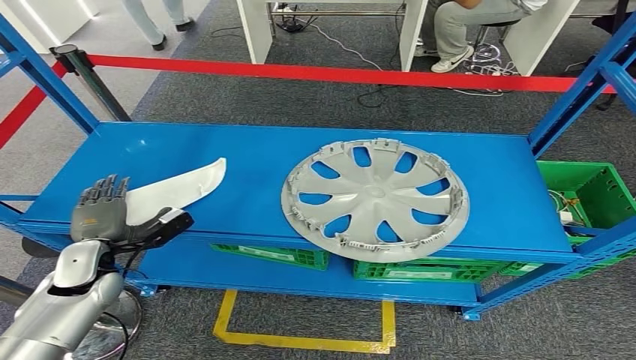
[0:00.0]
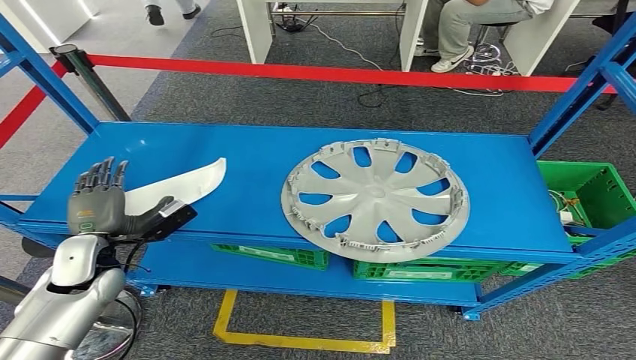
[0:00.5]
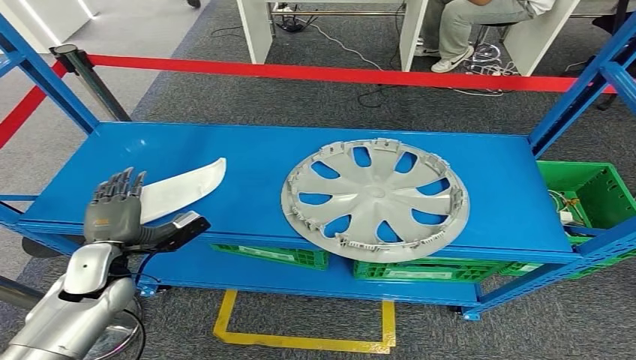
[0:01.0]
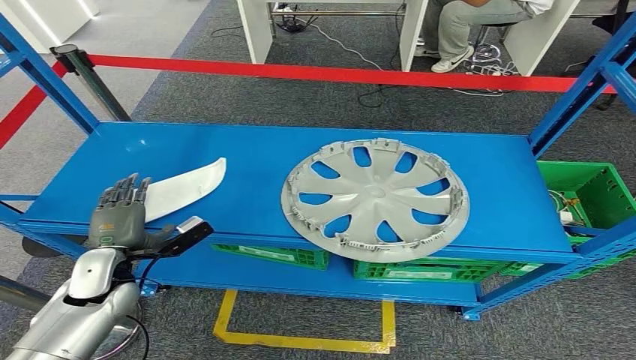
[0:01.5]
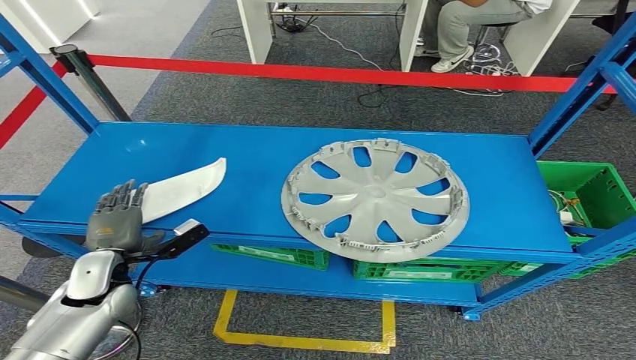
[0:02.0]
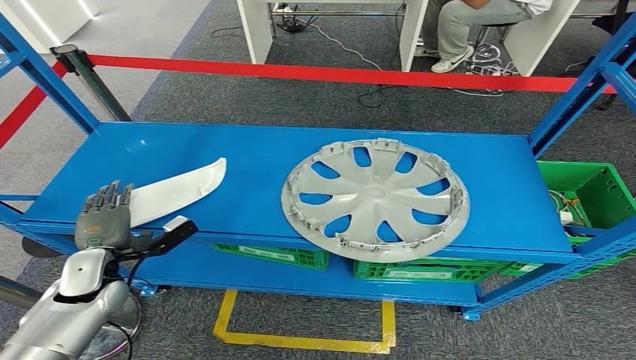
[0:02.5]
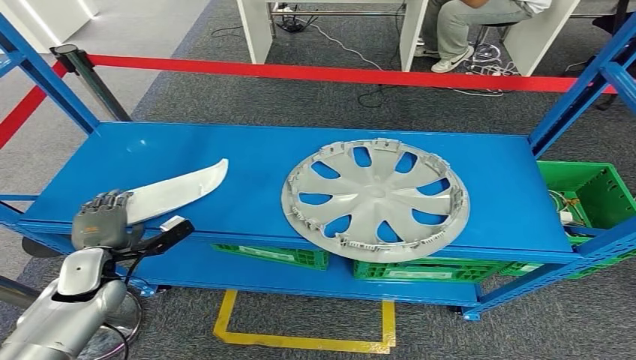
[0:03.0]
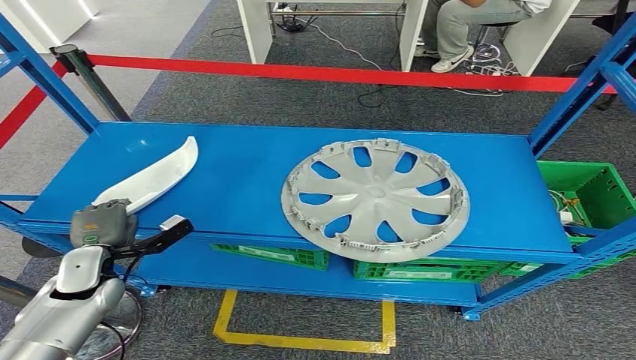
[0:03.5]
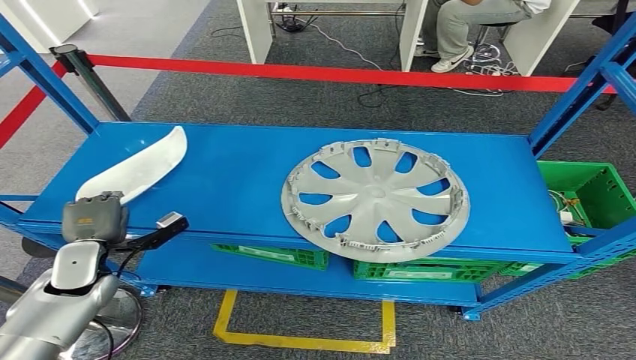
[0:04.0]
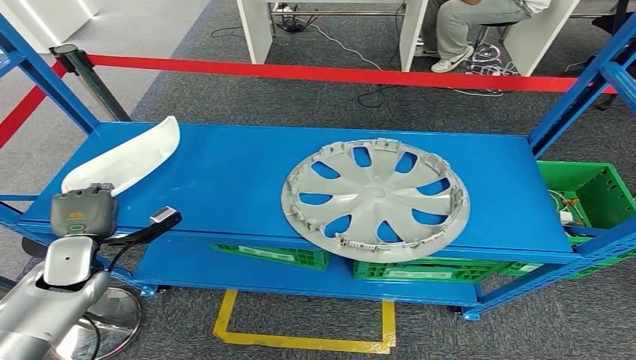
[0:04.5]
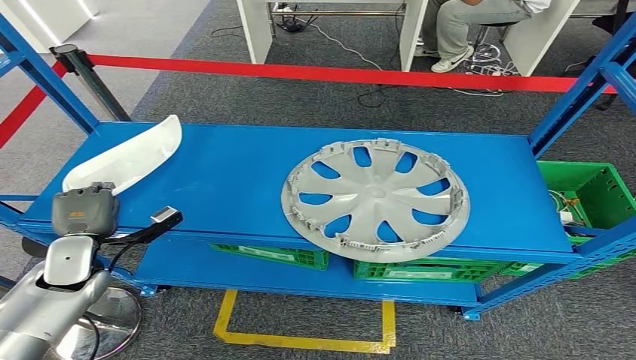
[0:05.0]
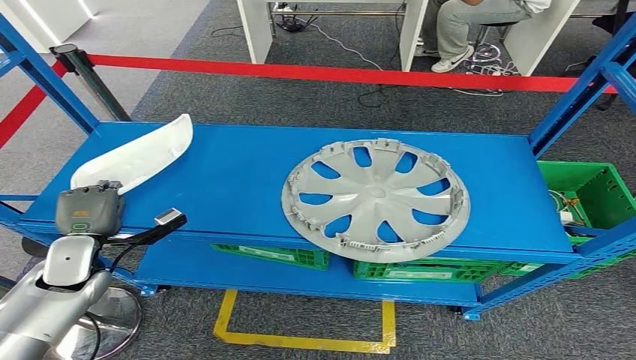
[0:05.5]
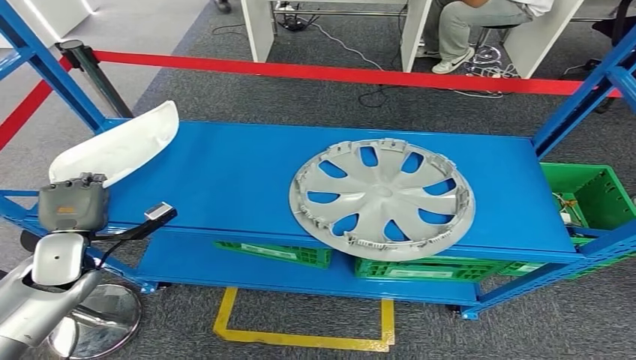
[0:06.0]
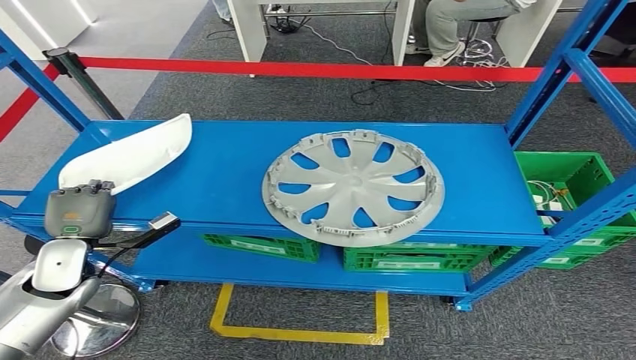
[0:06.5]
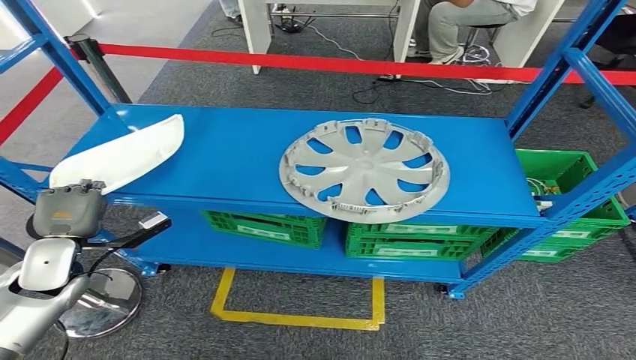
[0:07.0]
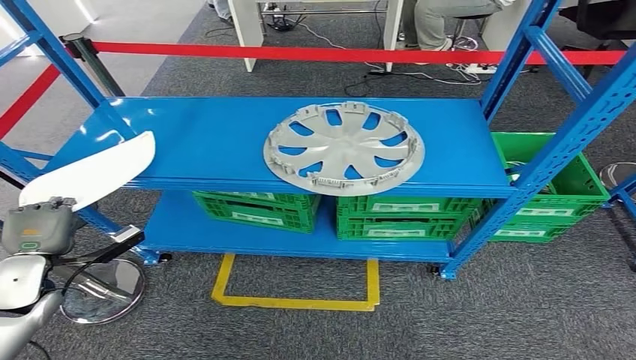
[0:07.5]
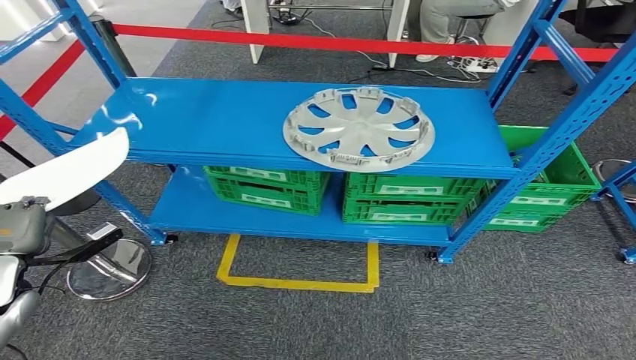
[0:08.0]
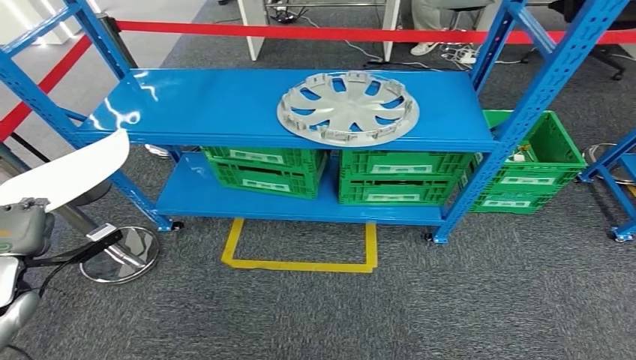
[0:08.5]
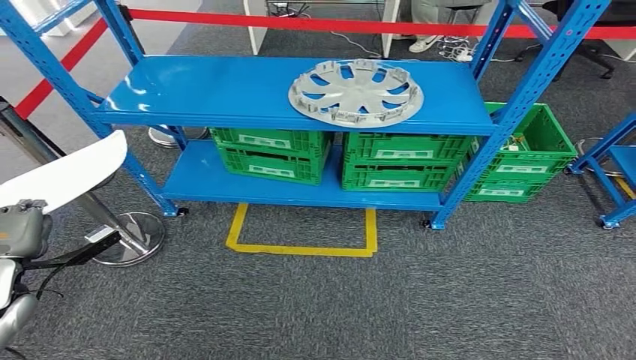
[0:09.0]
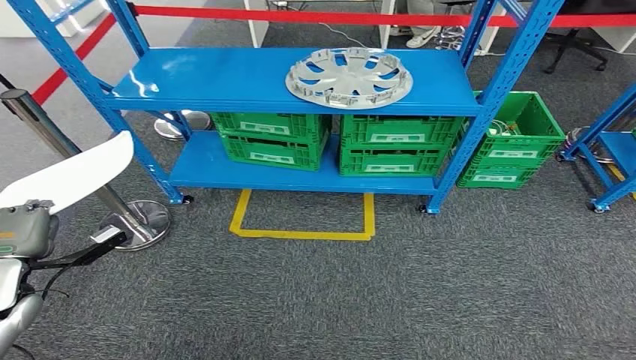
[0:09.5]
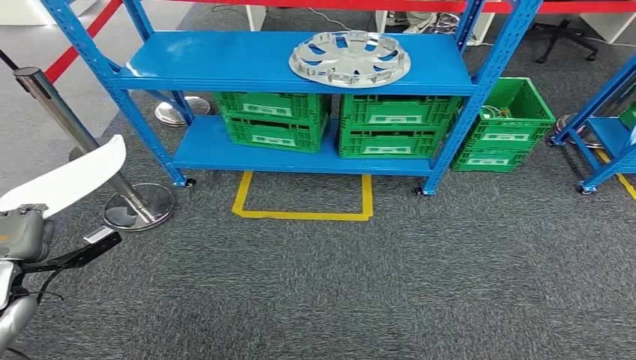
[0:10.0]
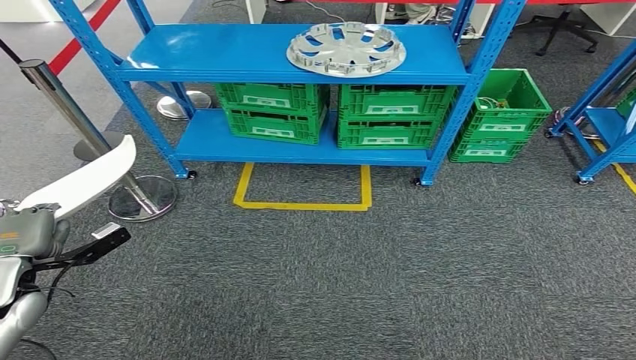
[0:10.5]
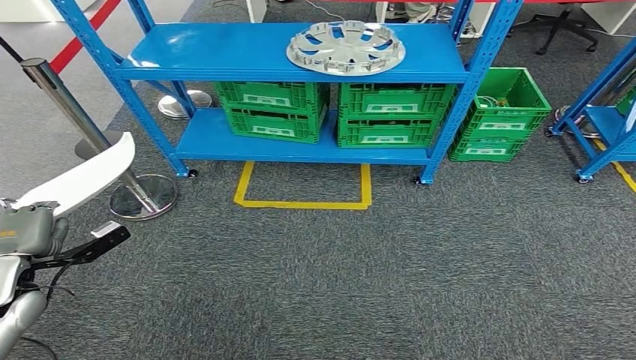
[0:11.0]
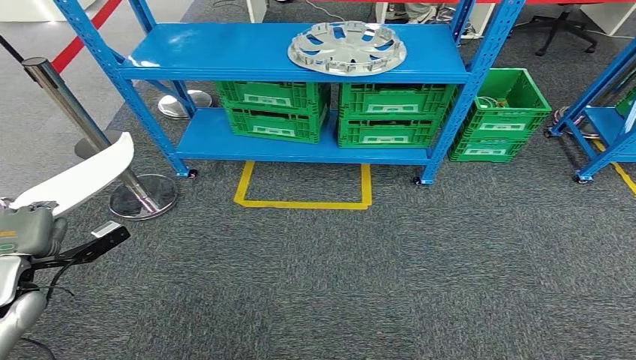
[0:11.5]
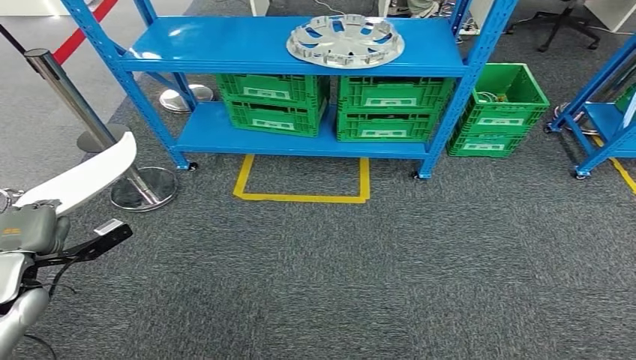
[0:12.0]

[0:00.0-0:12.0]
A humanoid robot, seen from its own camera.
Step, 0:00.0 to 0:08.5: Pick up the small component from the shelf.
0:00.0 to 0:04.0: The hands make only small movements.

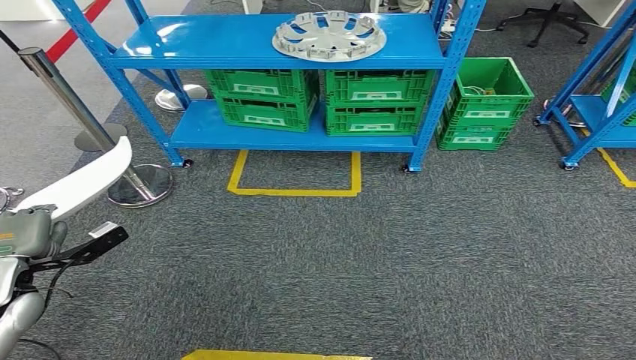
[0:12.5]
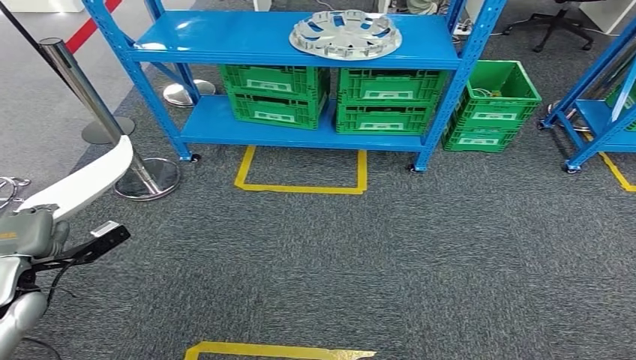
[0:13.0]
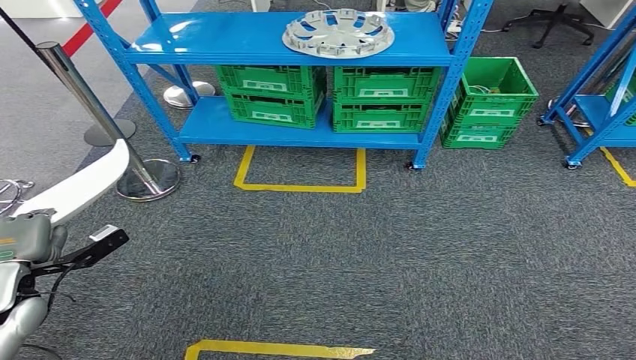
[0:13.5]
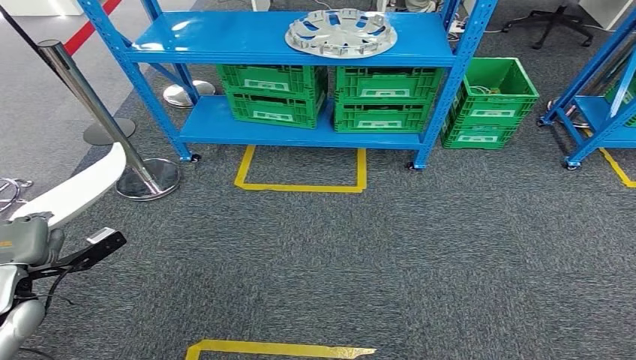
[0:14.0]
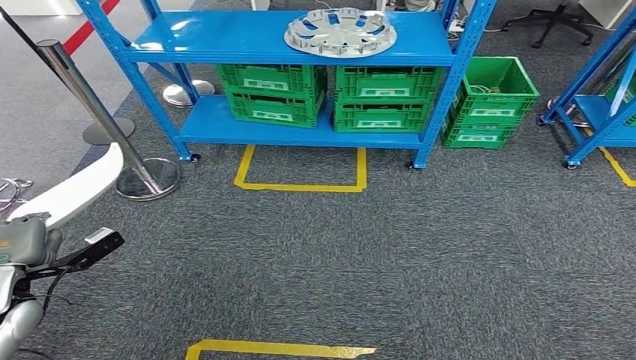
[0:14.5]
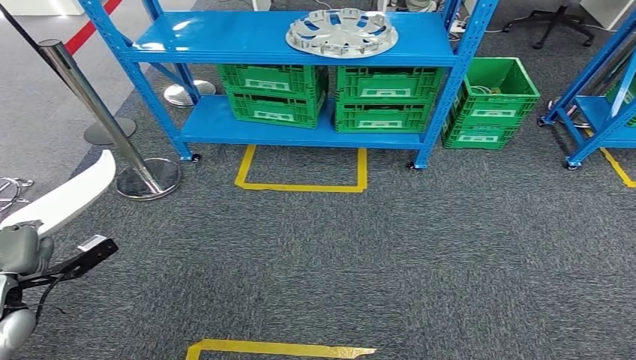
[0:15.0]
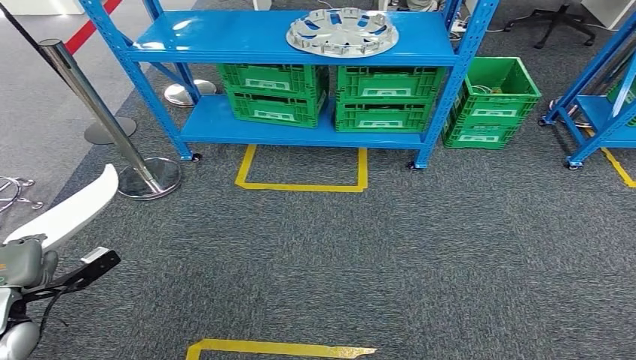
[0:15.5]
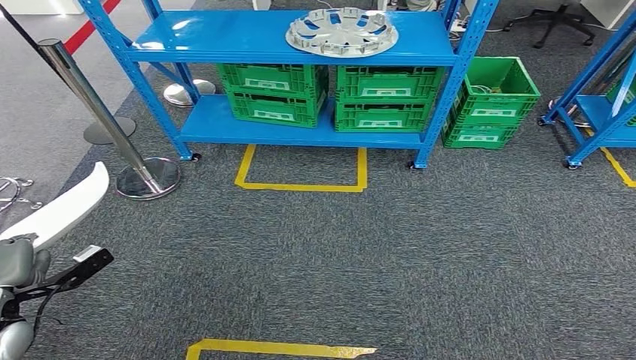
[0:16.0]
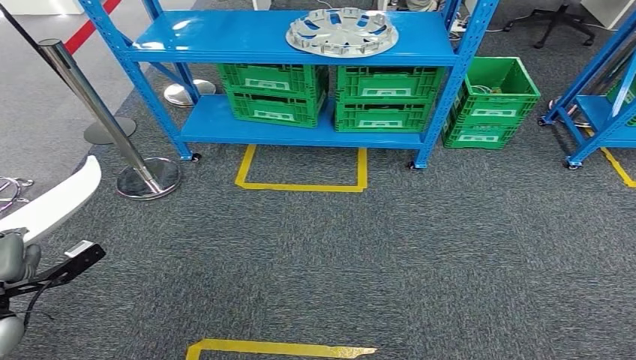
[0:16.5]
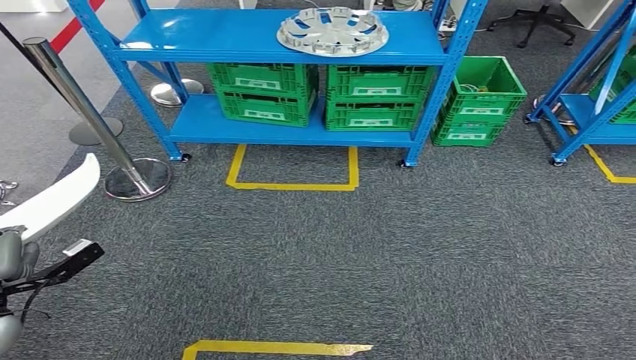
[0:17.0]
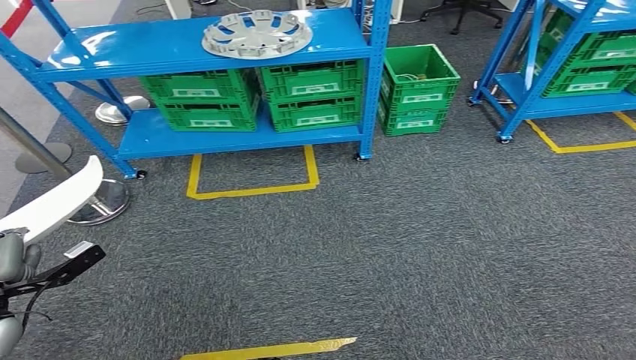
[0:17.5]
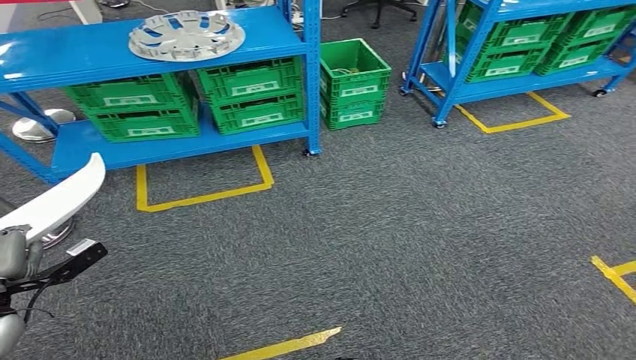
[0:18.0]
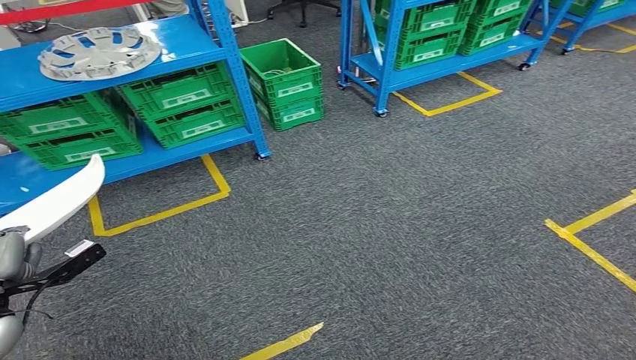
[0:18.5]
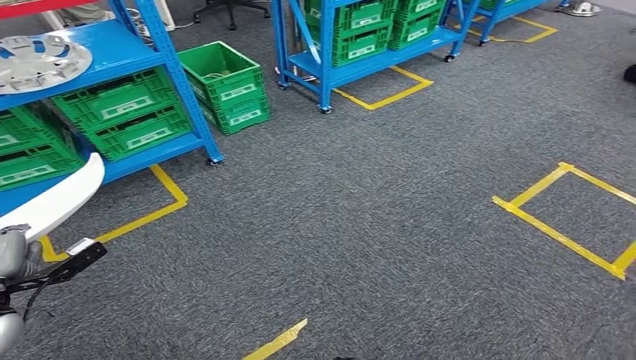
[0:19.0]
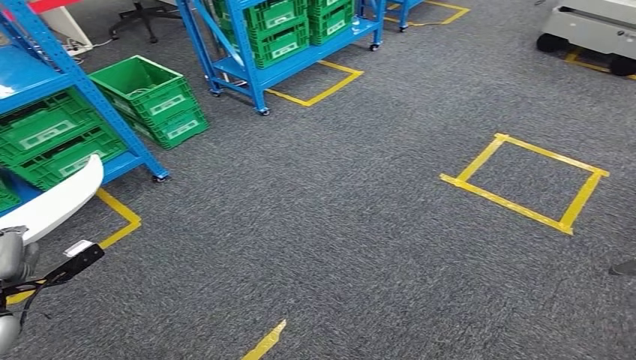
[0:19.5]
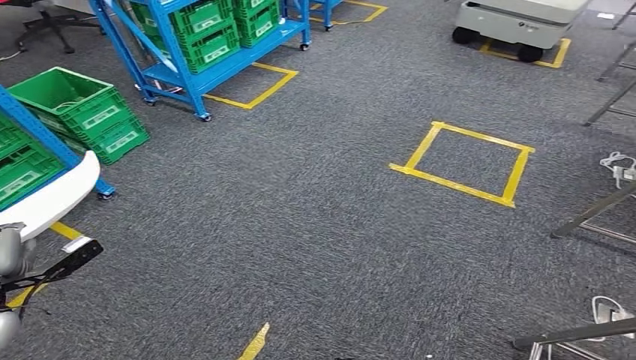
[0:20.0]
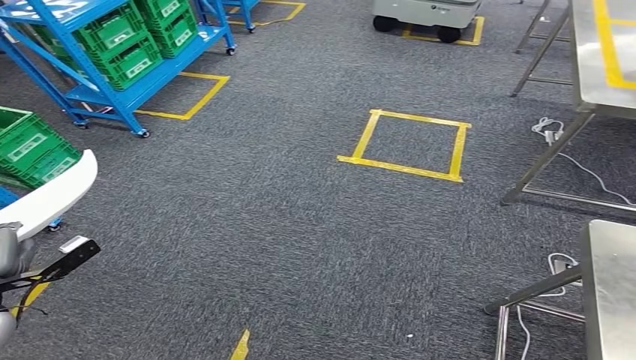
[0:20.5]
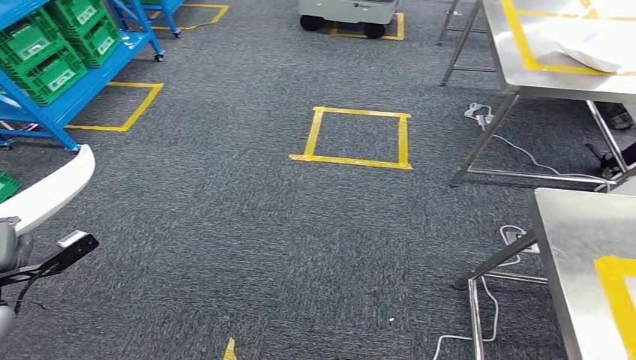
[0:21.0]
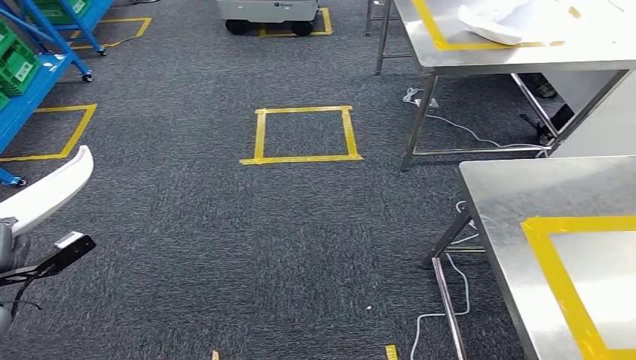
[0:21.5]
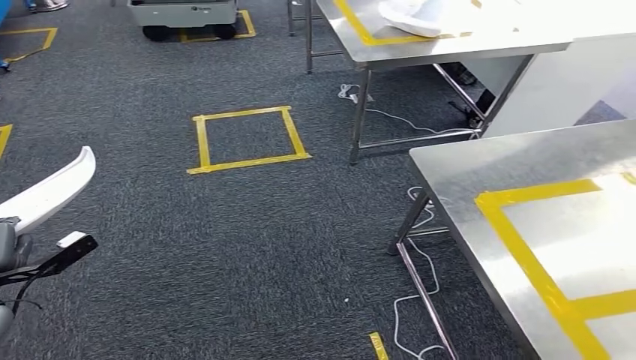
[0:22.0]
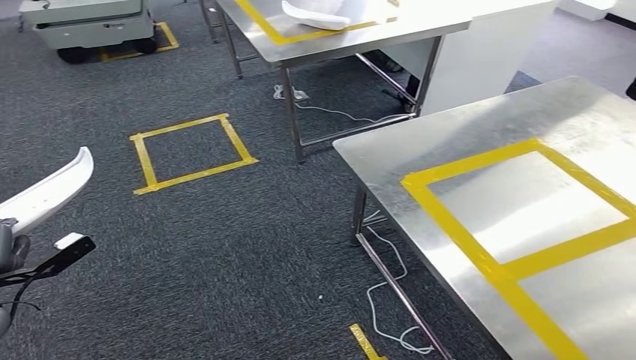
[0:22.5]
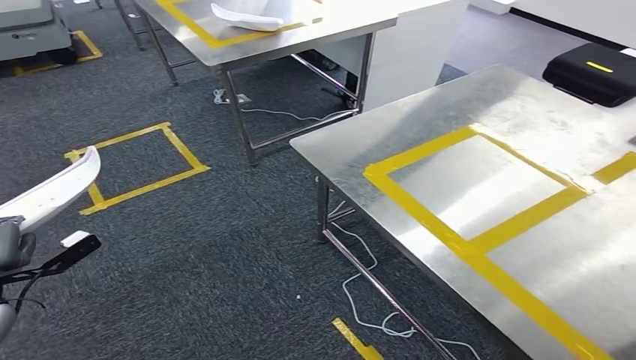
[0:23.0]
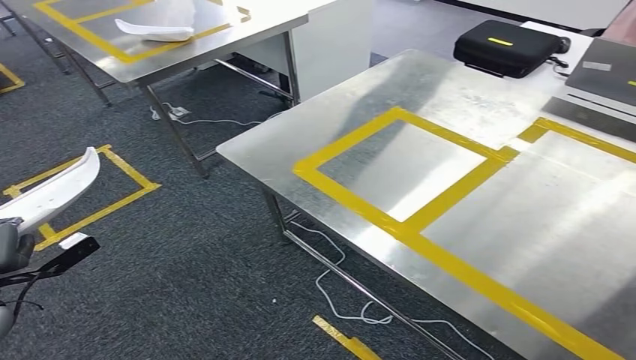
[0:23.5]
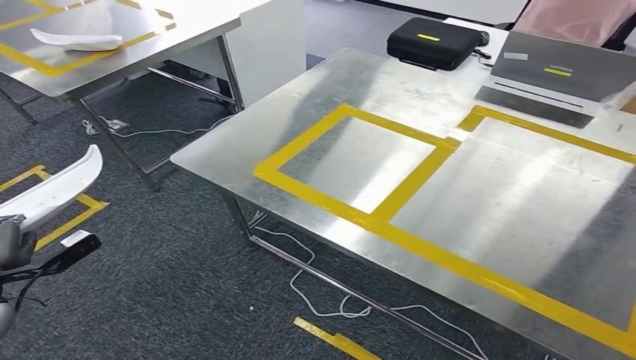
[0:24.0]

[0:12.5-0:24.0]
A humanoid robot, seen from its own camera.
0:14.5 to 0:16.5: The hands stay close to where they were, moving slightly.
